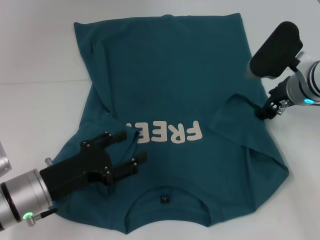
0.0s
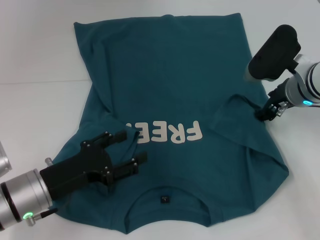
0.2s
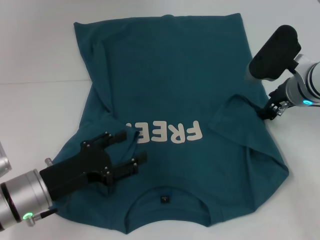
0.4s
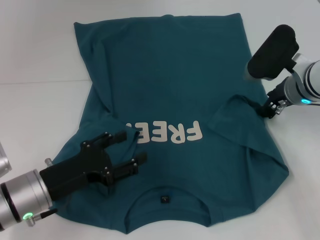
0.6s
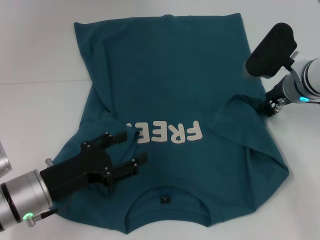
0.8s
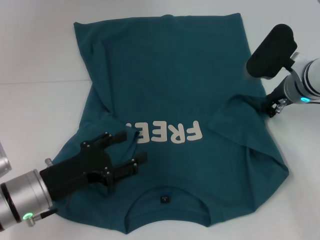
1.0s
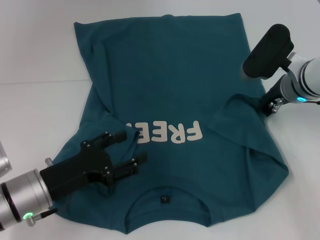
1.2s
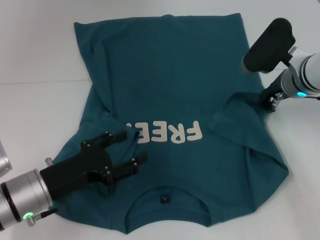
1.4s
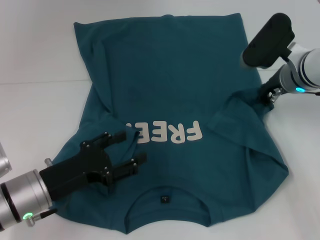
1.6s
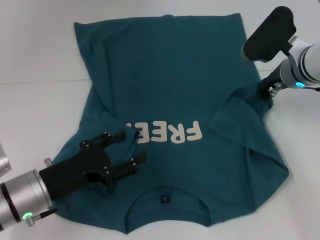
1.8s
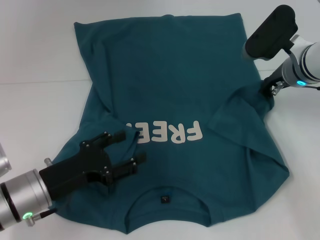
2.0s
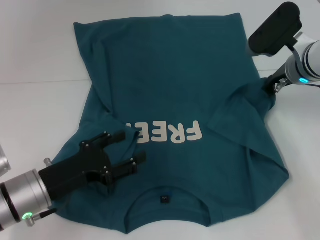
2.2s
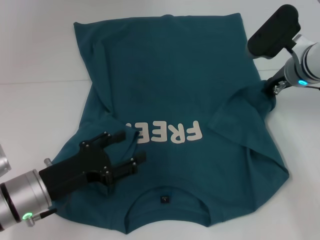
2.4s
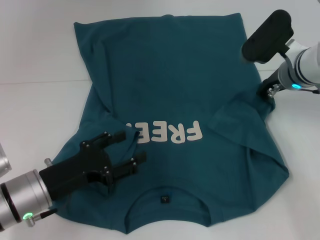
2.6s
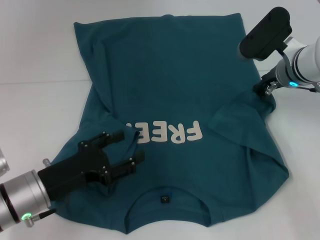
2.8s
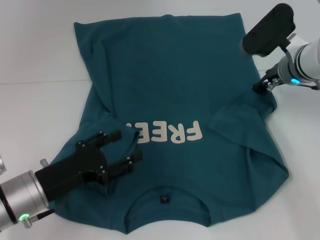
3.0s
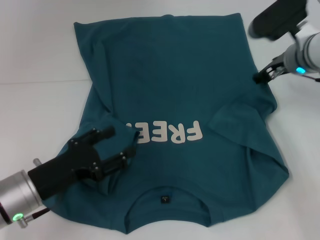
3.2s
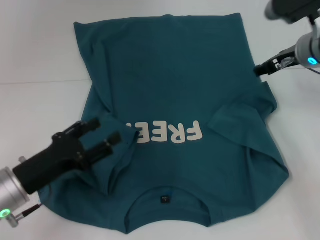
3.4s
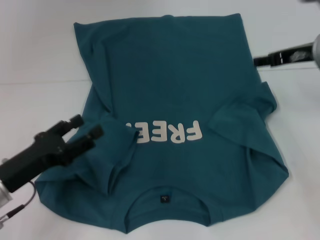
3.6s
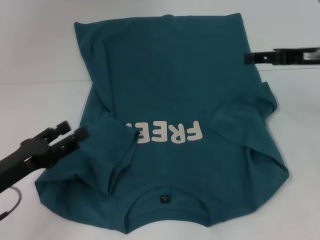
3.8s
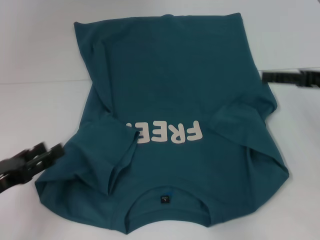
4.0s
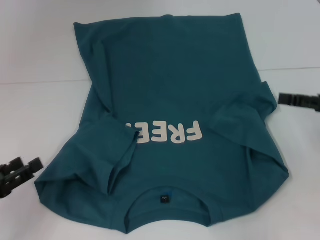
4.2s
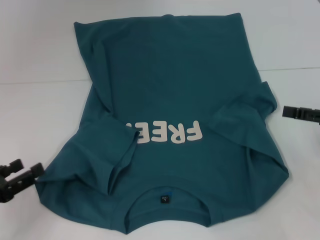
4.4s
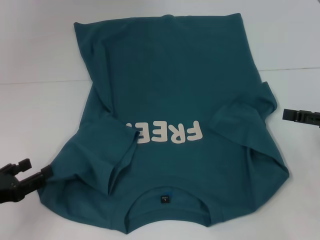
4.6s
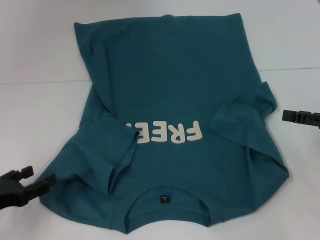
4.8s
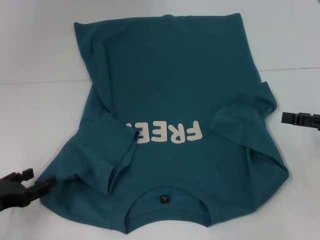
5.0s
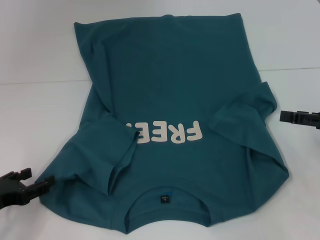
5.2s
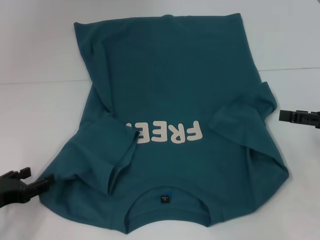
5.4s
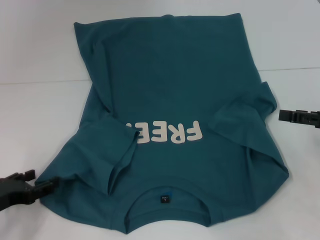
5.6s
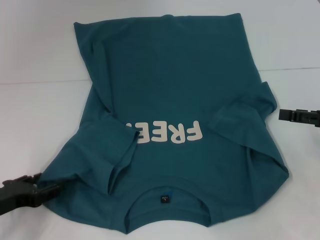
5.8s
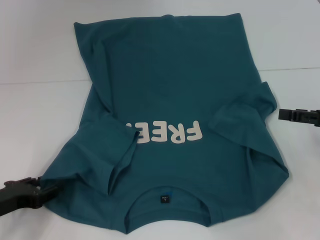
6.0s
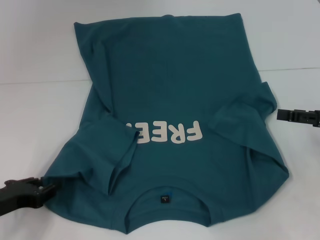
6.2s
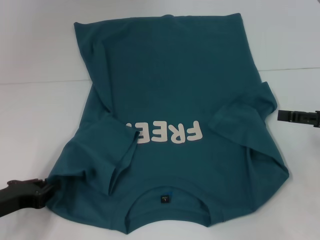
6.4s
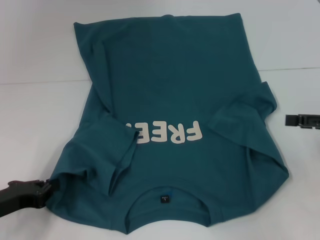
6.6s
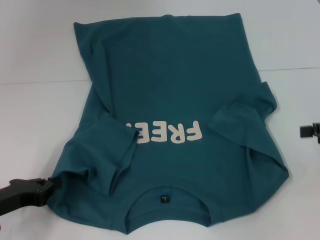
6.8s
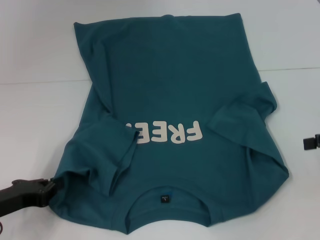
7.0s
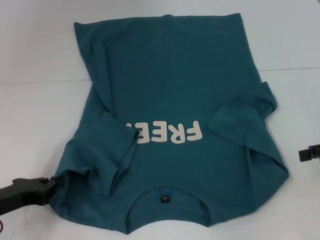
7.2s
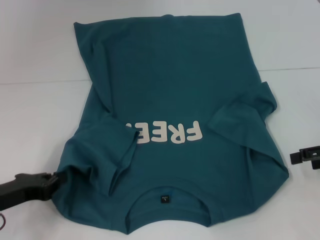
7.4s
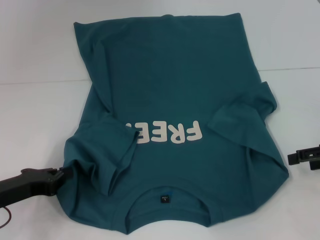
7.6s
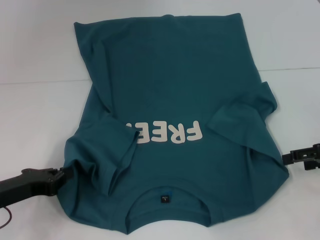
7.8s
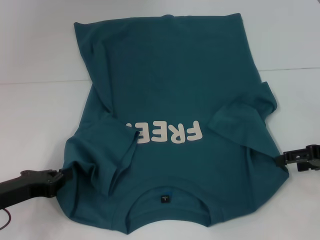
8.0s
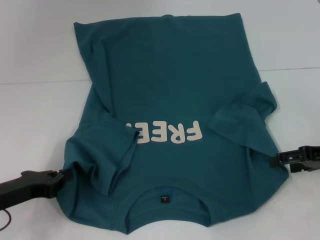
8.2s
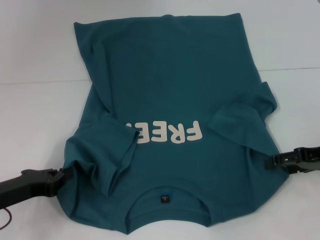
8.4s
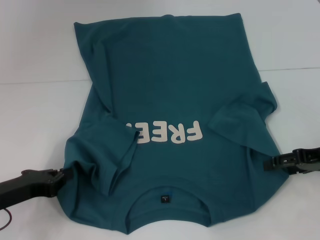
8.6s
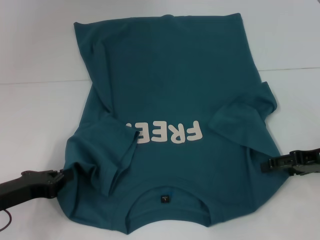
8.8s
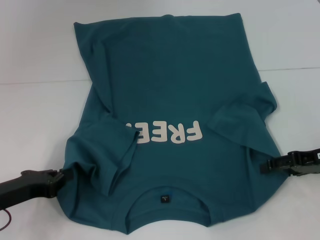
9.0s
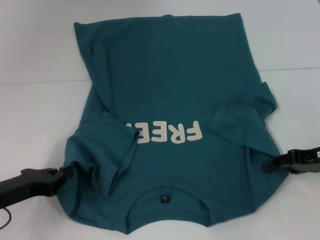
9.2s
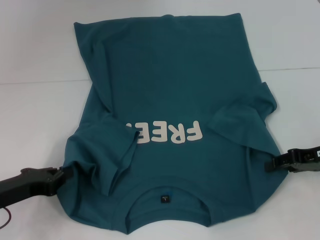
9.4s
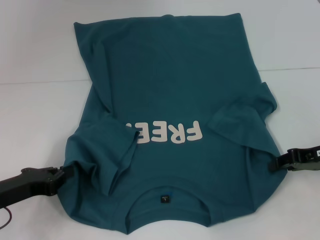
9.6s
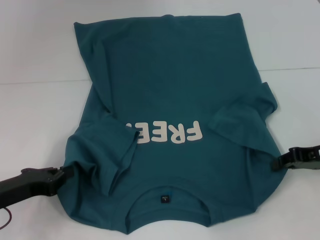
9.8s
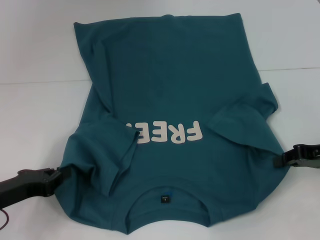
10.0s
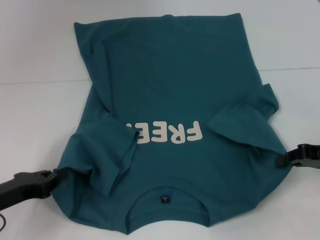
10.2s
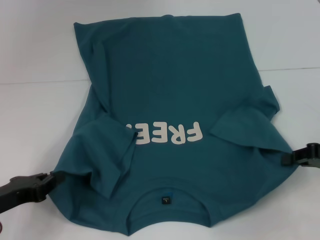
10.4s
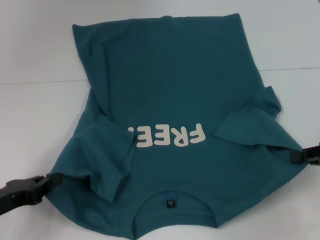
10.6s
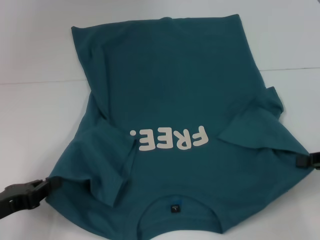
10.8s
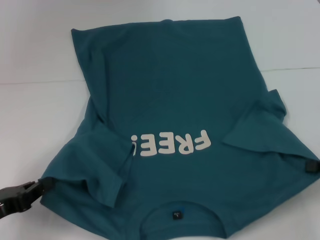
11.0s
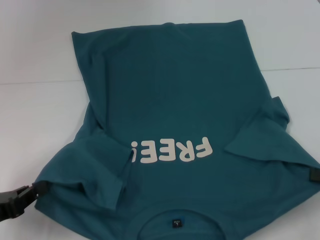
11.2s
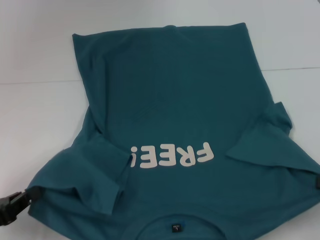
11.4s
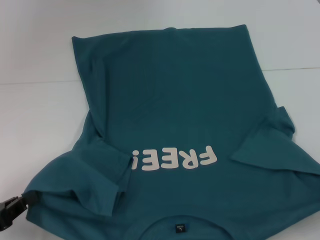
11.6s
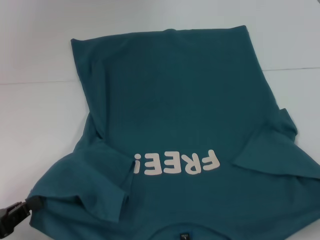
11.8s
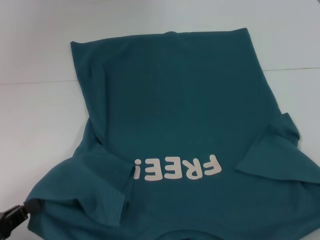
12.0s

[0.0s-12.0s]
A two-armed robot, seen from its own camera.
Step, 0.0s to 4.0s: Fold the bottom right sleeve to the right.
Step, 4.2s to 7.4s: Grab the bottom left corner with your left hand.
Step, 7.6s to 10.2s: Grab the bottom right corner with your right hand.
0.0s to 1.6s: The right gripper closes.
1.6s to 3.0s: The grippers stay close to where they were, moving slightly.
3.0s to 4.4s: The right gripper moves backward and to the right, some 20 cm, and opens its fingers, while the left gripper shifts some 15 cm to the left and backward.
4.4s to 6.0s: The left gripper moves some 5 cm.
6.0s to 7.6s: The left gripper closes up.
7.6s to 9.0s: The grippers make only small movements.
9.0s to 10.4s: The right gripper closes its fingers.
10.4s to 12.0s: The left gripper goes about 10 cm backward. The right gripper moves backward and to the right, roughly 10 cm.

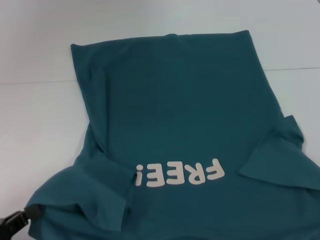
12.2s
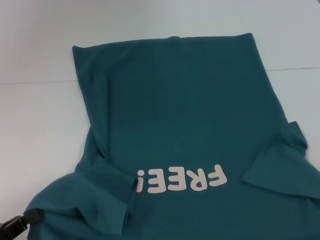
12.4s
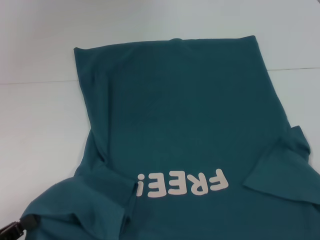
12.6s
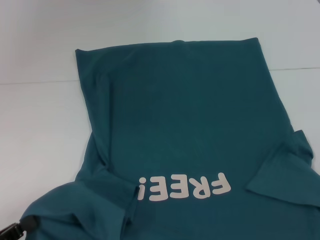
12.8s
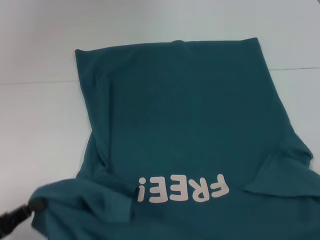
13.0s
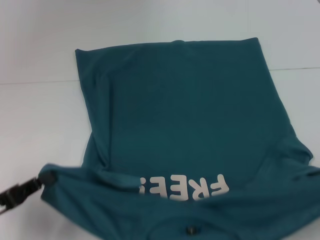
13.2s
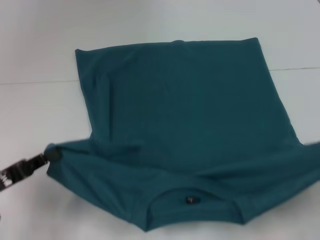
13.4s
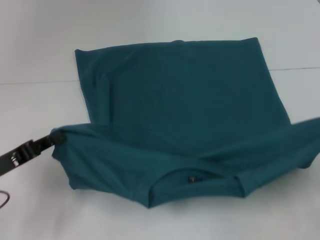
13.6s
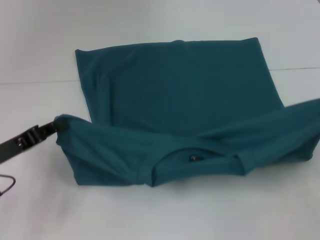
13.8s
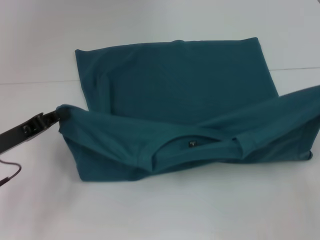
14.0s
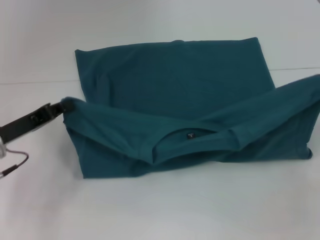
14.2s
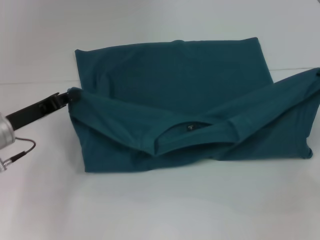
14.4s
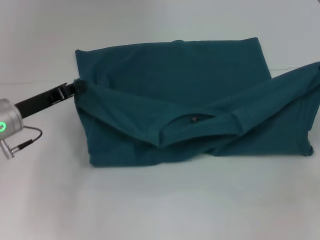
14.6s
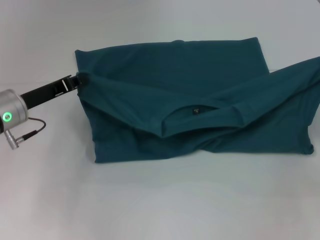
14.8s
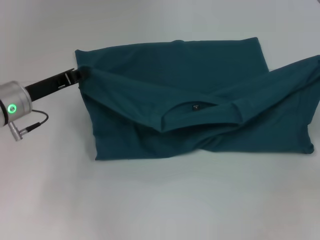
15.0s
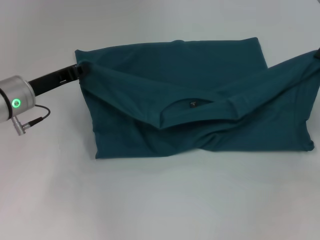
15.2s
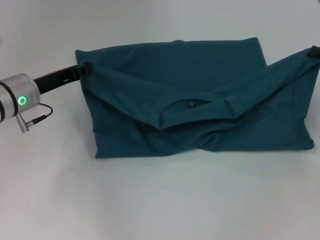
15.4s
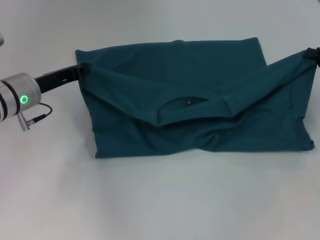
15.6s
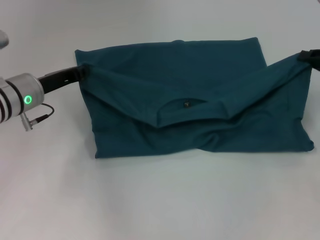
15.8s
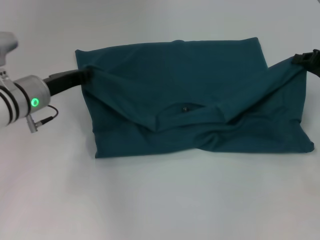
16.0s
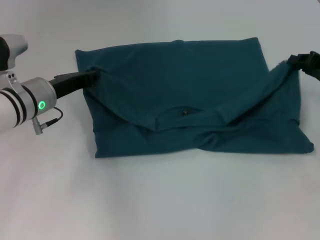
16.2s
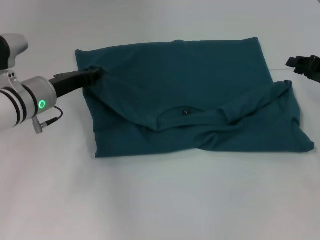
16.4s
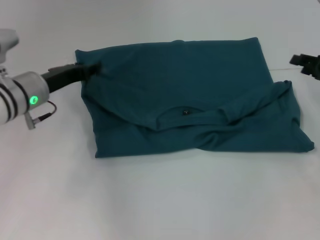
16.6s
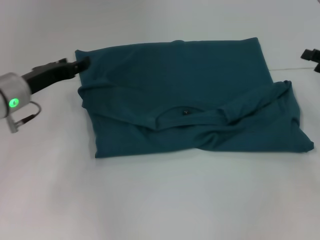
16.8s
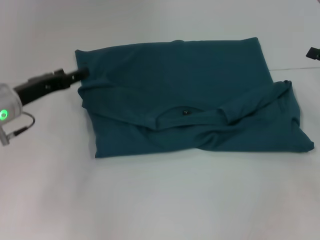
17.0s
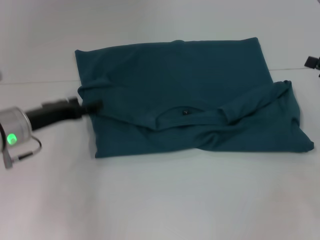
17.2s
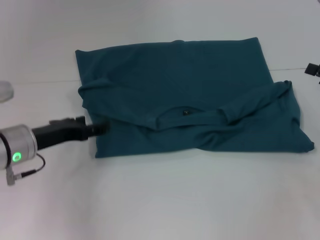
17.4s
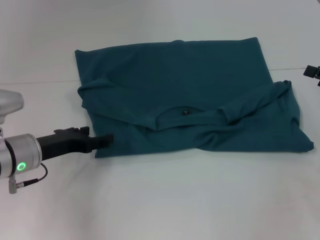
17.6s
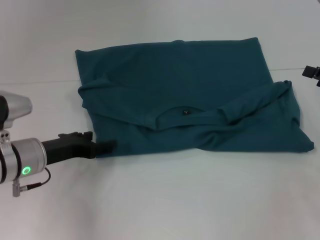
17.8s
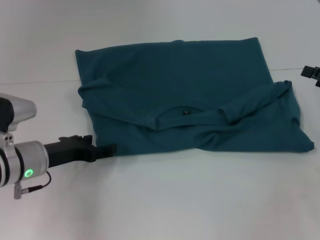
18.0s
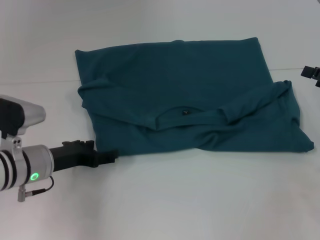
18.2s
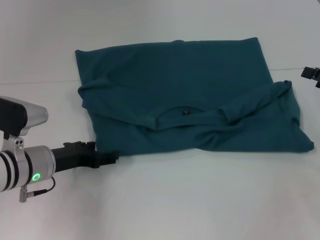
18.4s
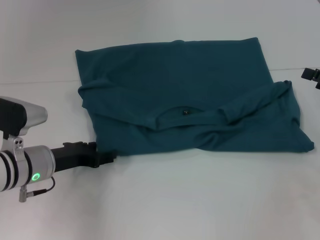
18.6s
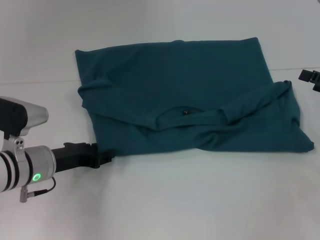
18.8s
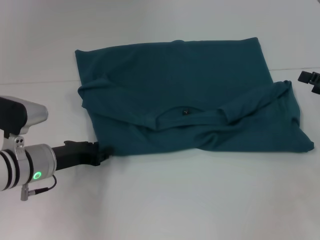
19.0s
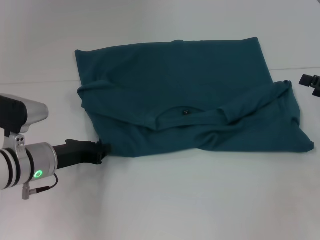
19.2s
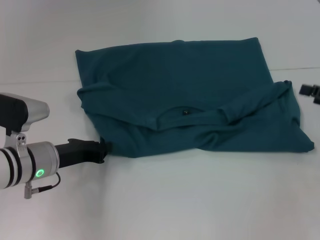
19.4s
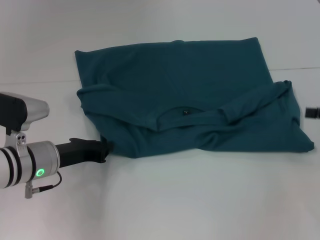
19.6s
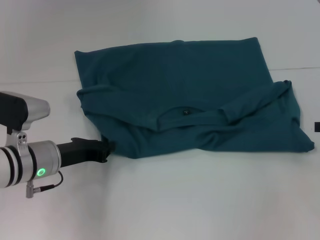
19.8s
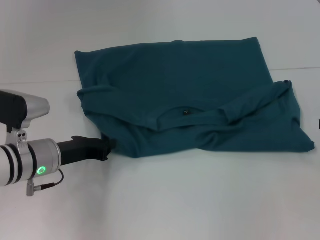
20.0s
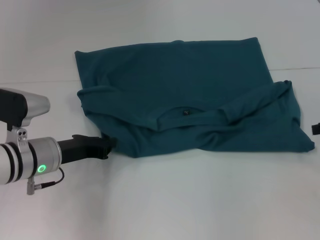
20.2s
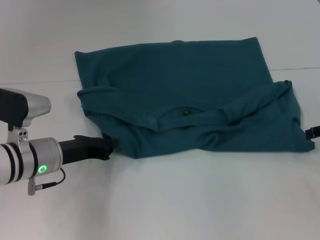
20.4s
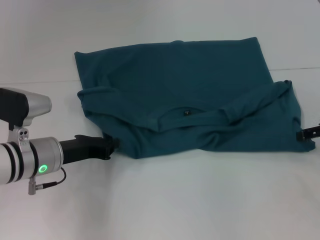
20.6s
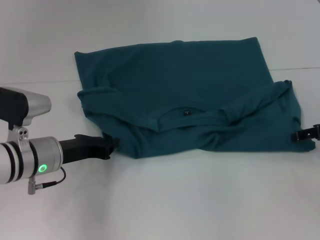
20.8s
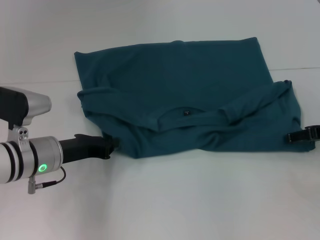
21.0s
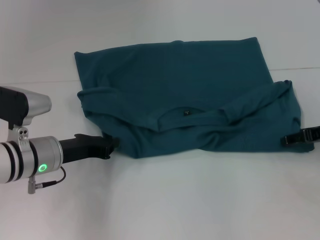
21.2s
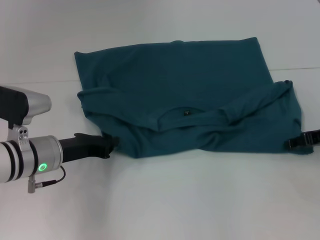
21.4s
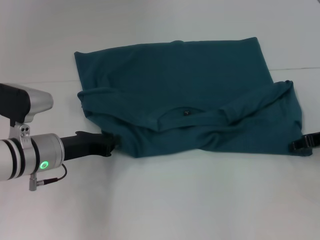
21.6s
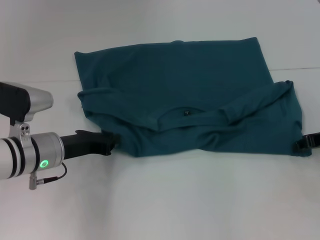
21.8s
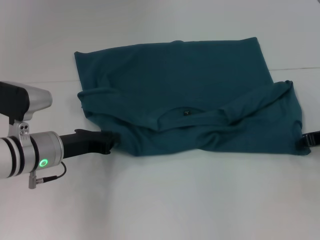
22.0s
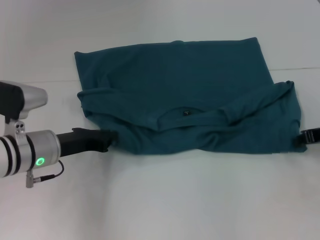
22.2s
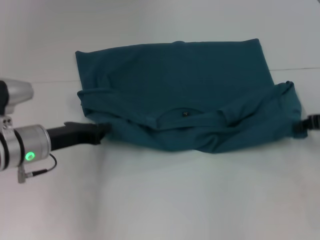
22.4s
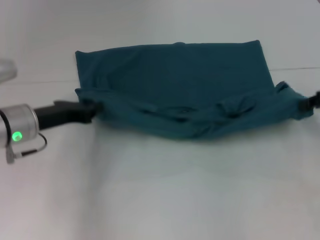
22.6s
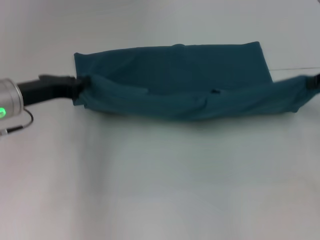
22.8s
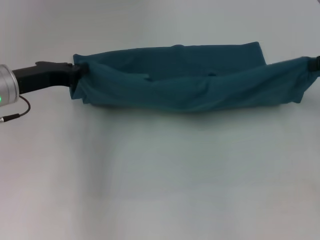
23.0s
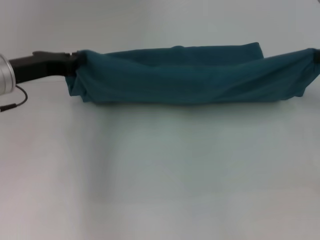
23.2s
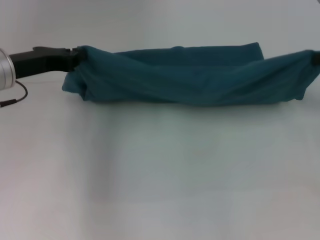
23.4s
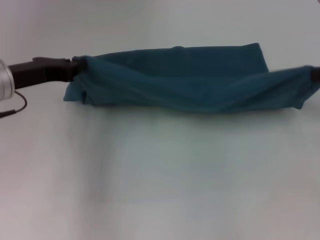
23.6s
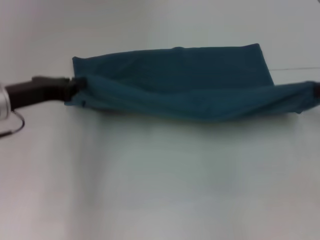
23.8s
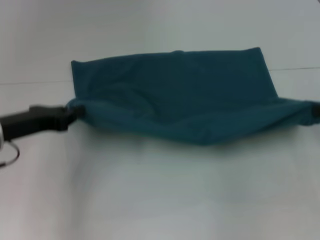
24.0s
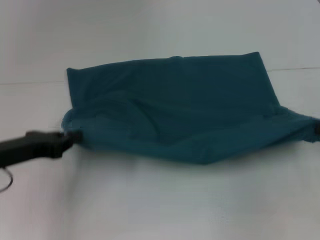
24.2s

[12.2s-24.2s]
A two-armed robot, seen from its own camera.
Step, 12.2s to 17.2s: Fold the clothes to the left.
Step, 12.2s to 17.2s: Fold the clothes to the right.
12.2s to 13.8s: The left gripper travels forward by approximately 15 cm; the right gripper travels forward by about 10 cm.
13.8s to 15.2s: The right gripper travels forward by approximately 10 cm. The left gripper travels forward and to the right by about 15 cm.
15.2s to 16.6s: The right gripper opens its fingers.
16.6s to 18.2s: The left gripper goes about 10 cm backward and downward, and opens its fingers, while the right gripper goes roughly 5 cm backward, and opens its fingers.
18.2s to 19.8s: The left gripper closes its fingers.
19.8s to 21.2s: The right gripper shifts some 10 cm to the left and forward.
21.2s to 22.6s: The right gripper goes roughly 5 cm upward, and closes, while the left gripper ends up approximately 5 cm from where it was.
22.6s to 24.2s: The grippers both shift backward by some 5 cm.
